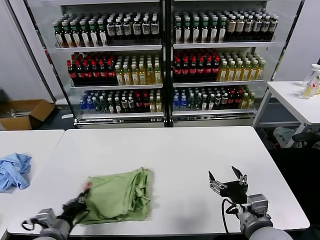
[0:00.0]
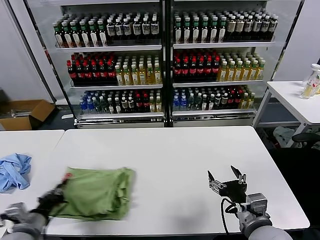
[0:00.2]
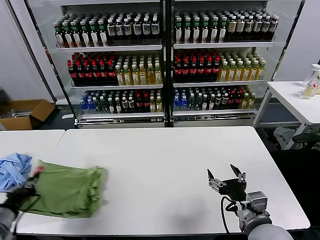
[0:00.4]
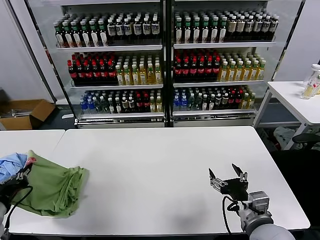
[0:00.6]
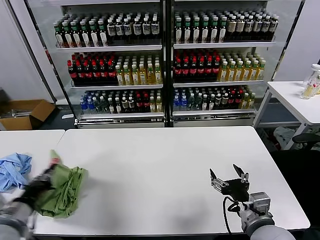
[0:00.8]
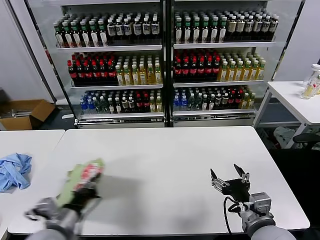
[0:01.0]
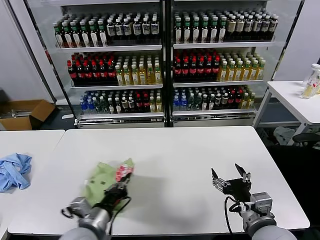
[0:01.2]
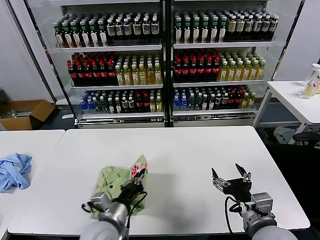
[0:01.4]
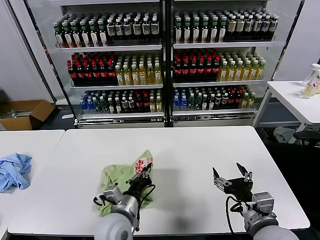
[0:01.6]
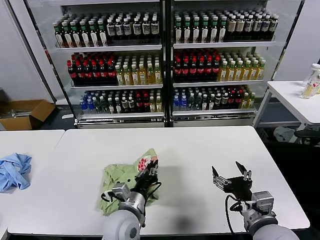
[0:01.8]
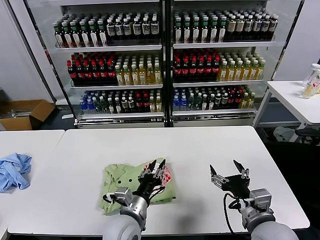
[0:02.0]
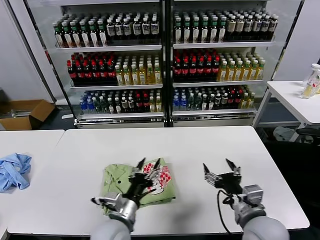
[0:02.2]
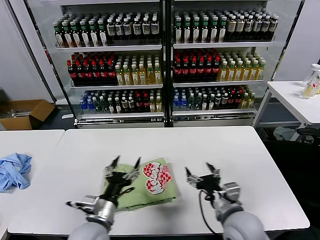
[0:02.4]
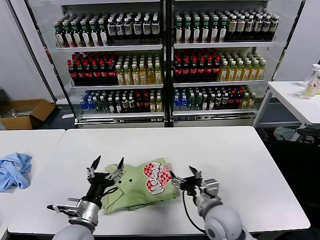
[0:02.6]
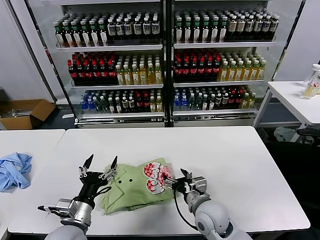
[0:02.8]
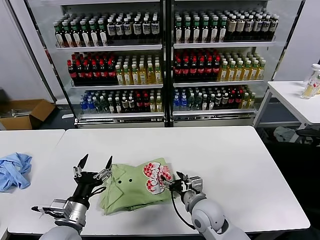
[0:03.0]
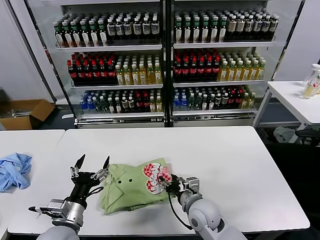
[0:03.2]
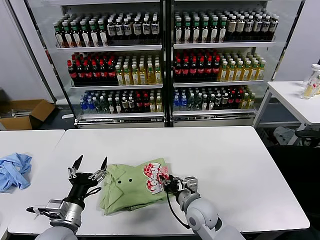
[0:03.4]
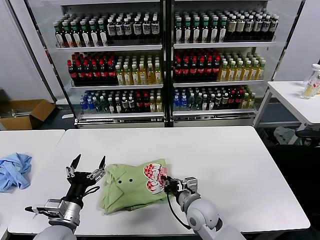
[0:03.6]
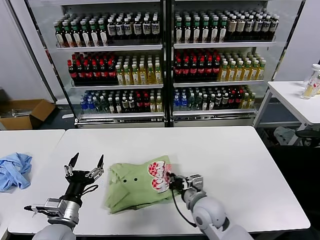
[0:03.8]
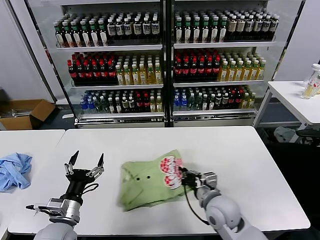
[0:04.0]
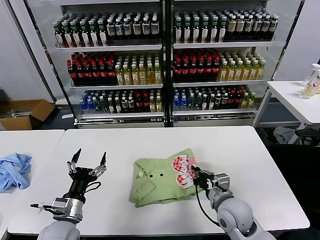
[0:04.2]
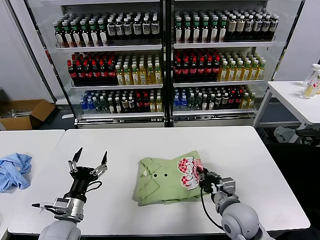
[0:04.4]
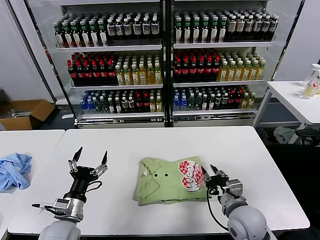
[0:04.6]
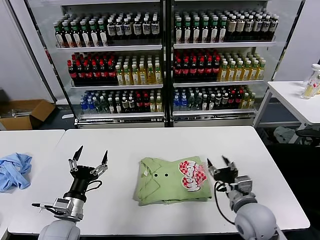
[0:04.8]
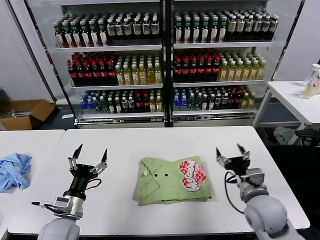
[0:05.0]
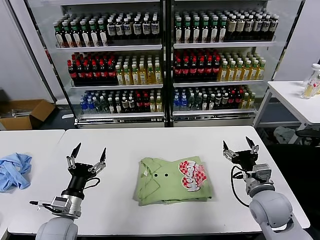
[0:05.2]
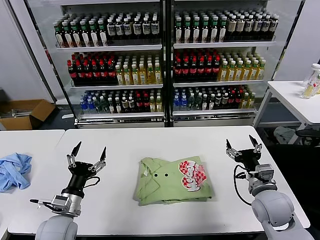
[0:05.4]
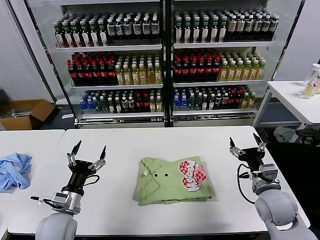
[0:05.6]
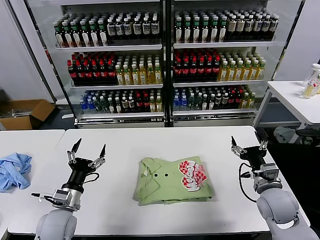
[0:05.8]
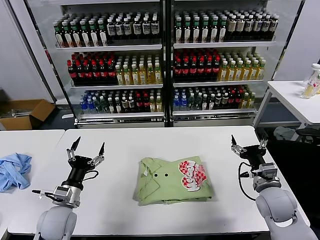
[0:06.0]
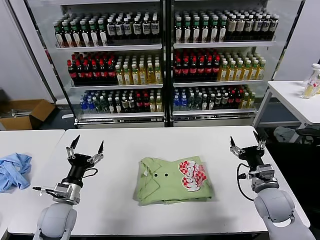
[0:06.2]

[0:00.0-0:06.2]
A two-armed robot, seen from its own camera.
Task of the whole recording: fold and organize the clothes.
Step, 0:00.0 to 0:02.0: Flip the folded clothes over with left gripper.
Step, 0:02.2 to 0:04.6: Drag the clothes to the center of the table.
0:00.0 to 0:01.6: The left gripper heads to the right, covering approximately 20 cm.
0:01.6 to 0:03.2: The right gripper goes about 20 cm to the left, forward and downward. Meanwhile the left gripper goes about 15 cm to the left, and opens its fingers.
0:03.2 to 0:04.6: The right gripper shifts approximately 10 cm to the right, and closes and opens again.
0:04.6 to 0:06.2: The right gripper shifts roughly 10 cm to the right, and opens its fingers. The left gripper moves about 5 cm.

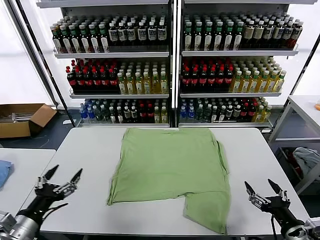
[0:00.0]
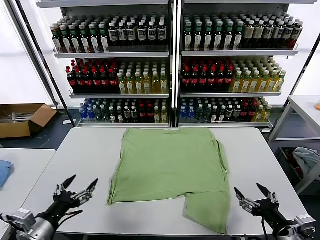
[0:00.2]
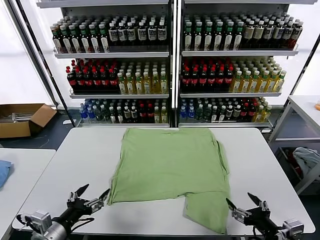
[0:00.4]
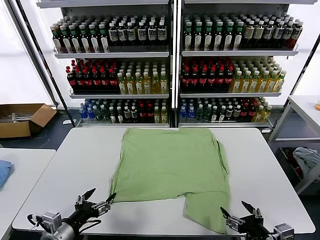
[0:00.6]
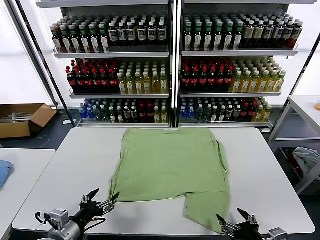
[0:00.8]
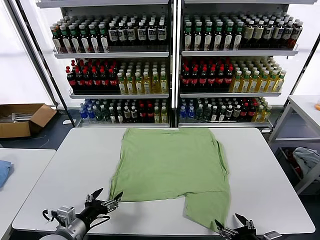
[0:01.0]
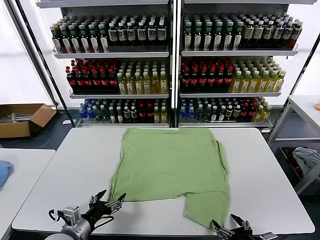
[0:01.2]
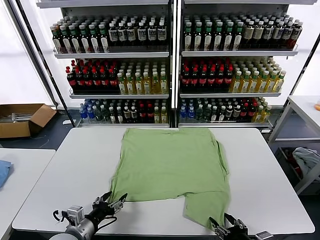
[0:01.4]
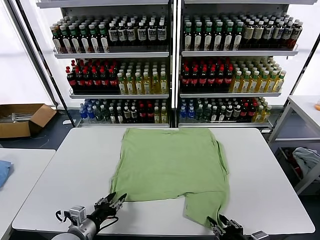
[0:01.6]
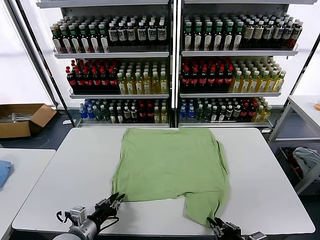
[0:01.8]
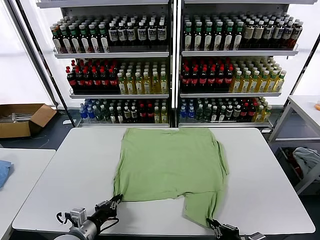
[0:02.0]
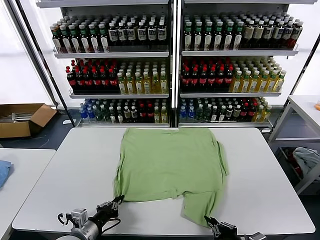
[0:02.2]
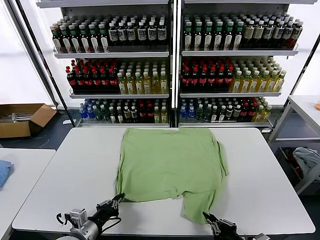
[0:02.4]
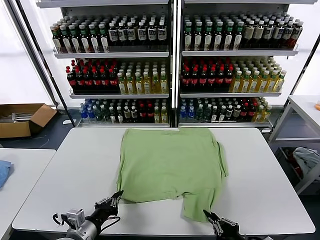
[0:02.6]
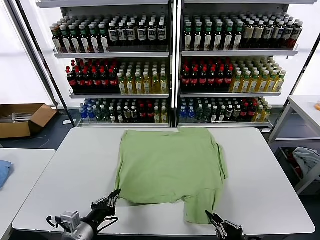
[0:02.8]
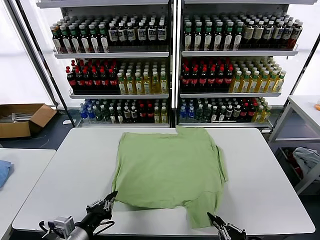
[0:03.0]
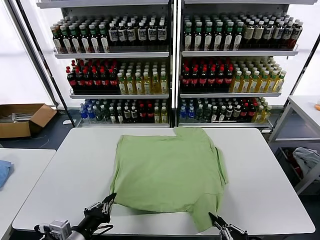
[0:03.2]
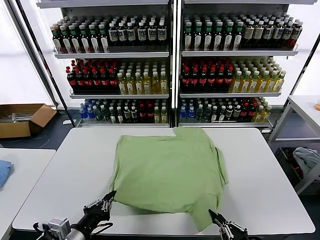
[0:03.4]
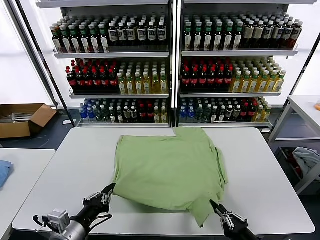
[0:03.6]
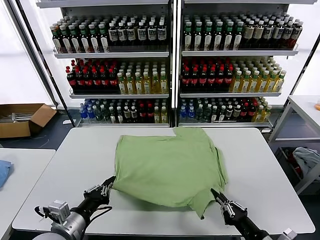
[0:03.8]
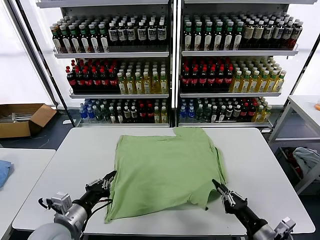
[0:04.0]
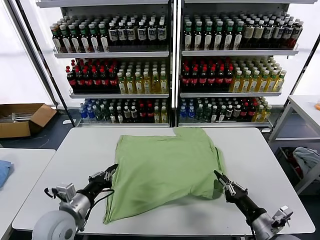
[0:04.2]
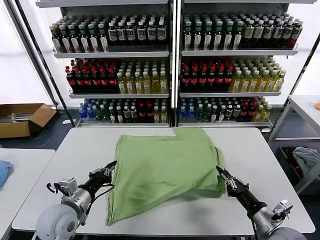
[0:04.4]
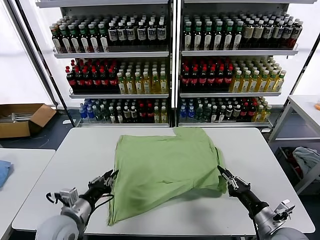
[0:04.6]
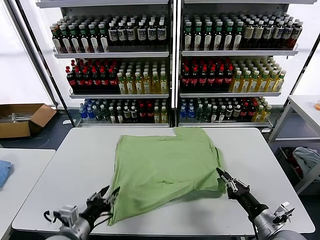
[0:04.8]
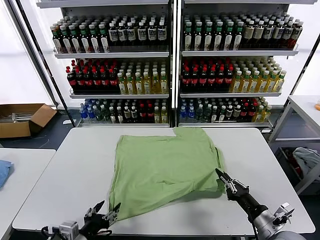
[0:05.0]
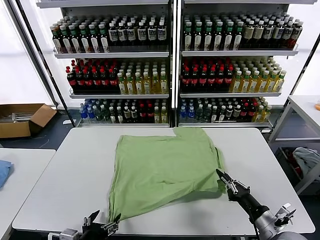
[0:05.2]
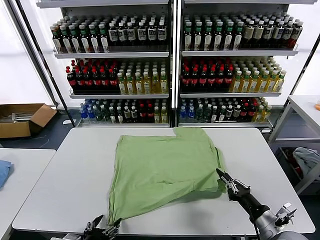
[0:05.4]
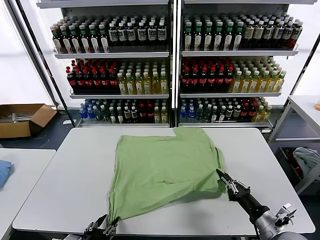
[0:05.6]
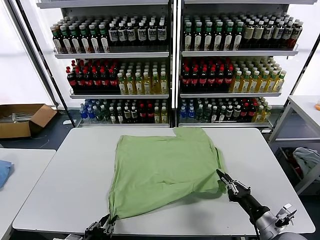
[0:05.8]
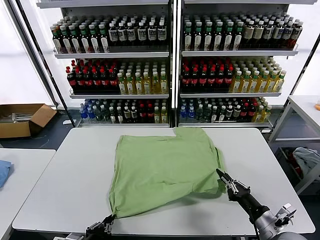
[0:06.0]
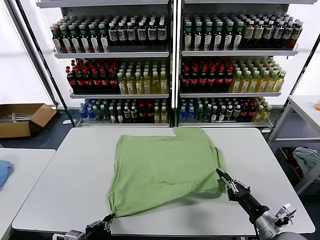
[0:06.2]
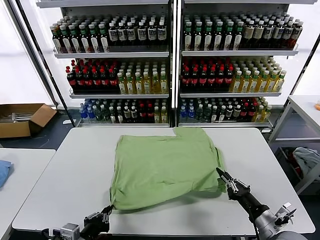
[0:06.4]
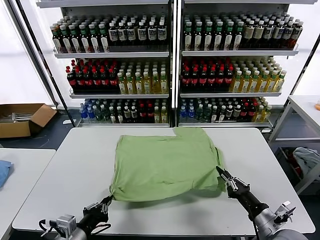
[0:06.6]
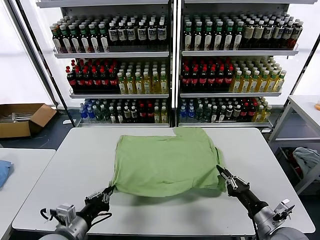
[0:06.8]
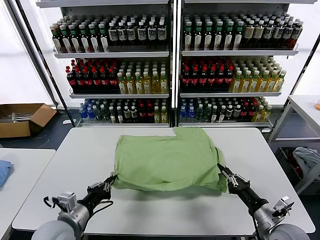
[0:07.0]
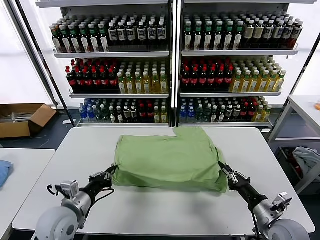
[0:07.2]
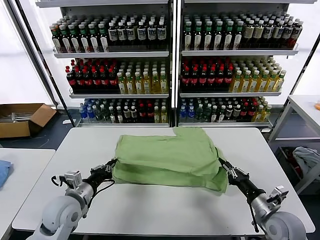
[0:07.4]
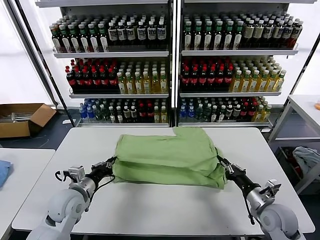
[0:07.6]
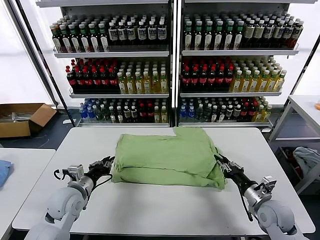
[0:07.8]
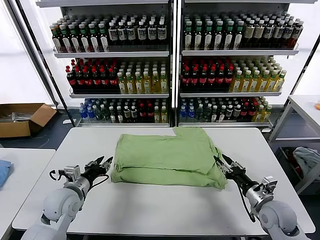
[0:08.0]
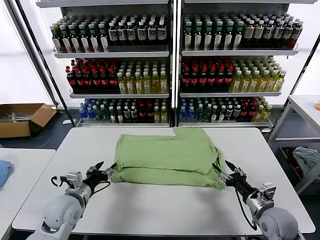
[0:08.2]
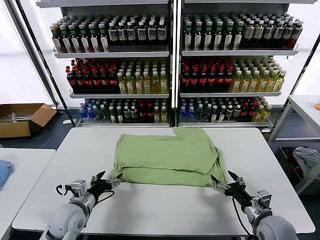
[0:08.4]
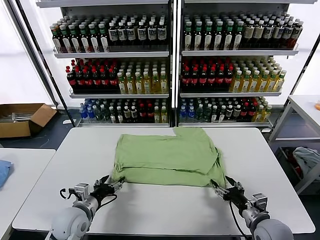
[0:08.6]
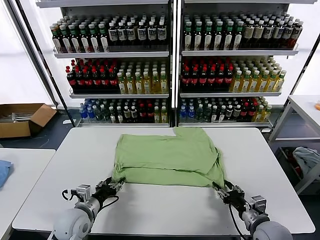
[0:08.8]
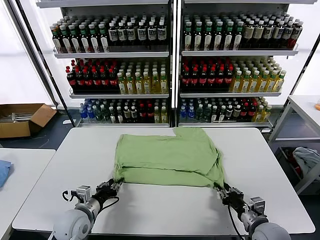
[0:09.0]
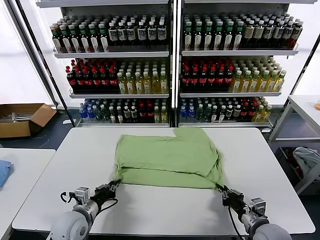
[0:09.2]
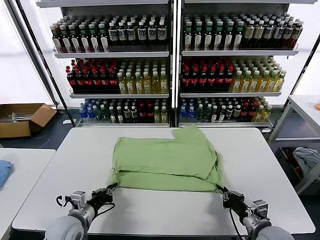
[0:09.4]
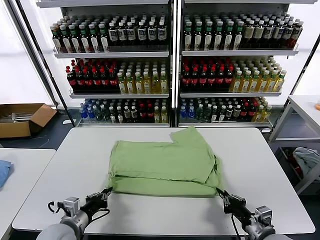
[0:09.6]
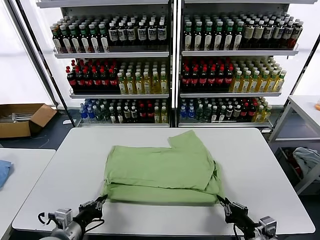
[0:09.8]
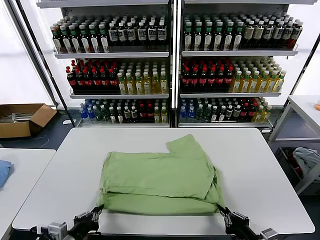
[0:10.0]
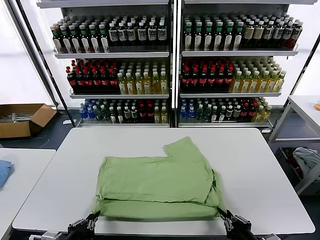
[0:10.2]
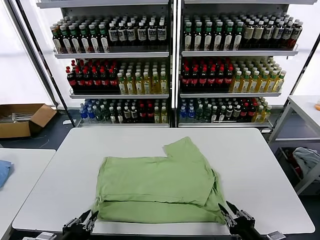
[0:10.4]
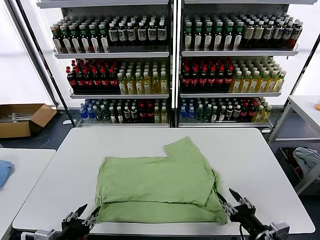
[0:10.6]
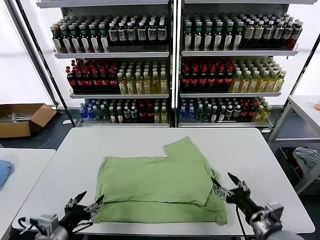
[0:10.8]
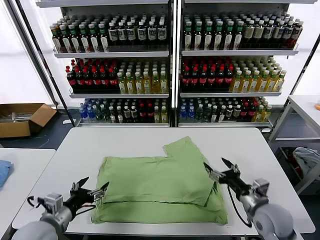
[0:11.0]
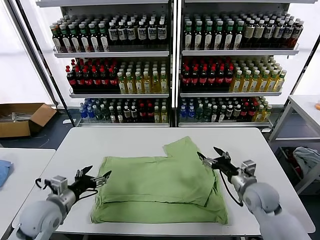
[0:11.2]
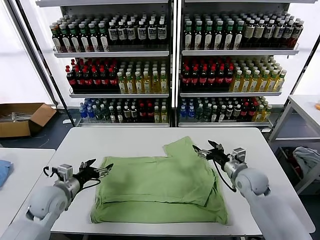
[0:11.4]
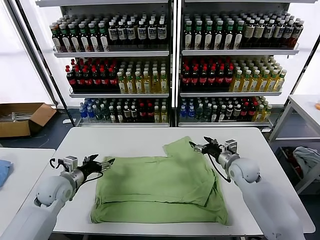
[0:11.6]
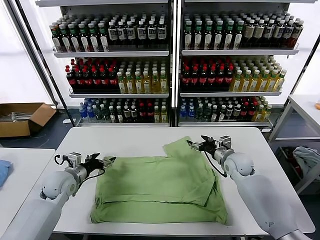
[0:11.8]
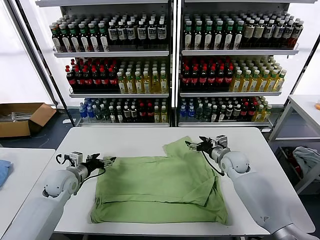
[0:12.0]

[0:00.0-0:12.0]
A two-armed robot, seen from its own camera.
Task of the whole recording: fold and organize the clothes.
Step, 0:00.0 to 0:06.0: use both grippers simultaneously to clamp the lower edge of the clothing fabric.
Step, 0:06.2 to 0:08.0: use both grippers to drag the lower edge of the fabric forward and fold it over the upper edge.
Step, 0:08.2 to 0:10.4: Drag the clothes downward with both gripper.
0:01.6 to 0:03.0: The left gripper heads upward and backward, covering about 10 cm, and closes. Meanwhile the right gripper shifts by roughly 5 cm.
0:03.0 to 0:04.4: The grippers both shift forward by approximately 10 cm.
0:04.4 to 0:06.0: The left gripper moves backward, about 15 cm, and opens, then closes again.
0:06.0 to 0:07.6: The left gripper goes roughly 20 cm forward. Meanwhile the right gripper goes some 10 cm forward.
0:07.6 to 0:09.0: The right gripper is displaced backward by approximately 5 cm, and opens and closes again. Meanwhile the left gripper is displaced downward by roughly 5 cm, and opens, then closes once more.
0:09.0 to 0:10.4: The two grippers go some 15 cm backward and upward.
0:10.4 to 0:12.0: The two grippers go some 35 cm forward. The left gripper opens up. Meanwhile the right gripper opens.

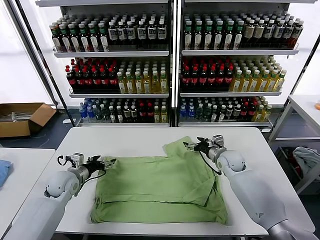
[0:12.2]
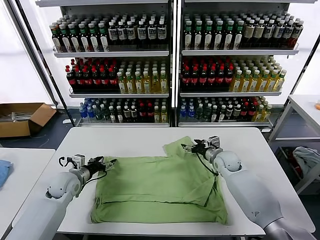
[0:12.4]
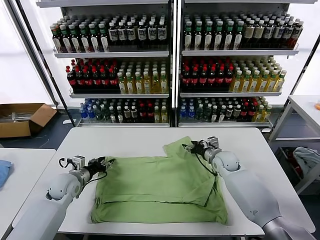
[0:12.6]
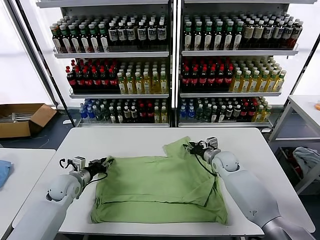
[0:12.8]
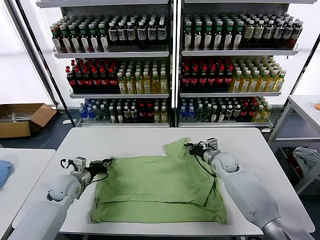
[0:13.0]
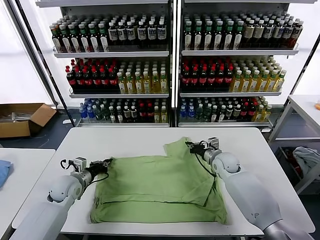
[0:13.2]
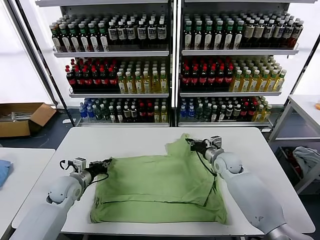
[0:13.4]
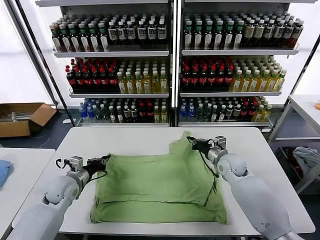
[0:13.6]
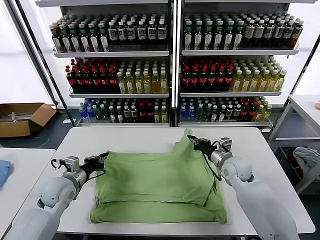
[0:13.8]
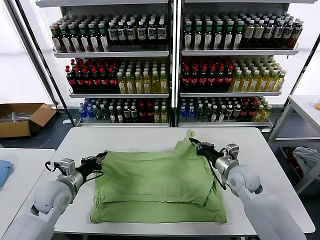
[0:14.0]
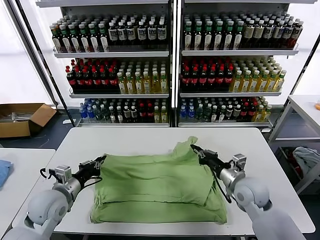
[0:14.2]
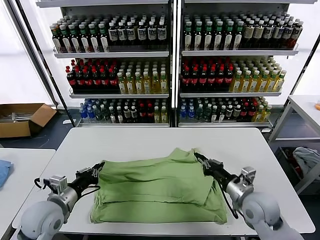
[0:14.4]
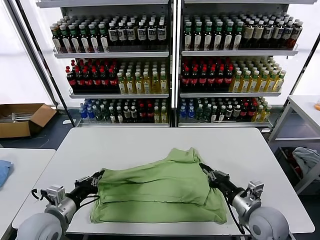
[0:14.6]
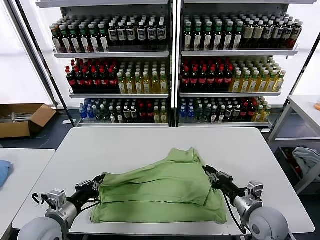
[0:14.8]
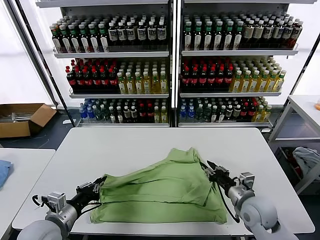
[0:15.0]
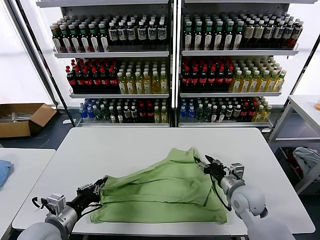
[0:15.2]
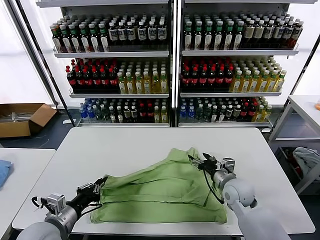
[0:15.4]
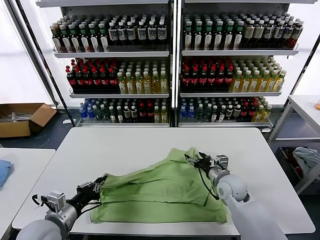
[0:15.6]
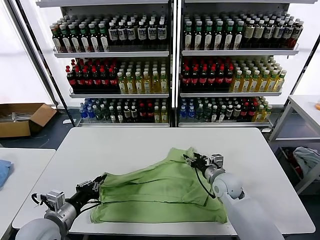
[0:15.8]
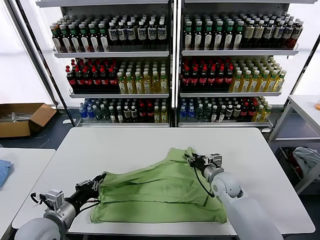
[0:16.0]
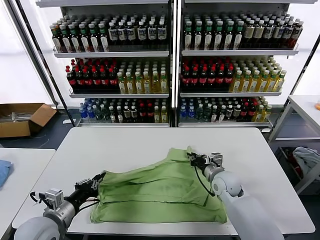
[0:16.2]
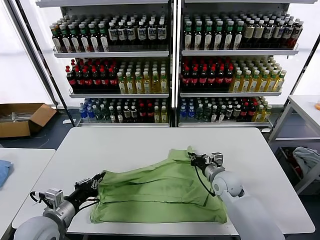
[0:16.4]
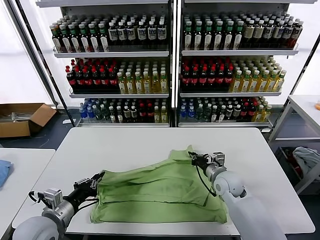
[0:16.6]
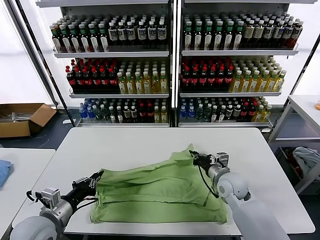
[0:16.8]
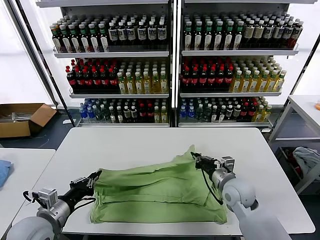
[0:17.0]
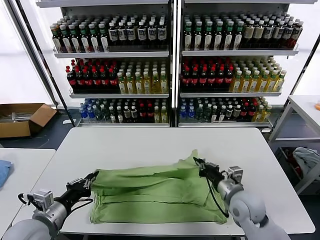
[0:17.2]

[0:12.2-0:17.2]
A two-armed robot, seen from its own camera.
Task of the whole recording: fold and organize the clothes.
Step, 0:12.2 to 0:16.2: use both grippers simultaneously to clamp the upper edge of the clothing fabric.
0:12.2 to 0:13.8: The left gripper changes place by approximately 5 cm, and closes up, while the right gripper shifts roughly 10 cm backward, and closes up.
0:13.8 to 0:15.6: The right gripper reaches some 15 cm backward, then returns, and opens. The left gripper shifts approximately 15 cm backward.
0:15.6 to 0:17.2: The right gripper goes roughly 10 cm backward, and closes up.
